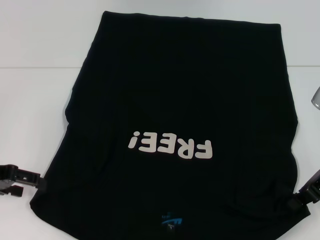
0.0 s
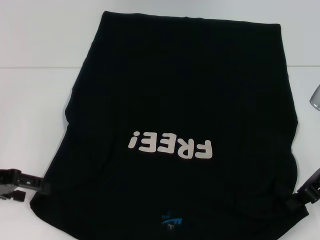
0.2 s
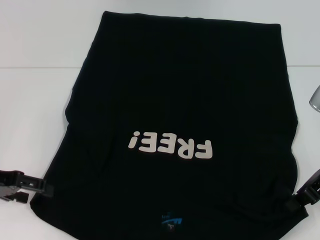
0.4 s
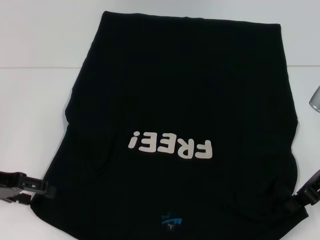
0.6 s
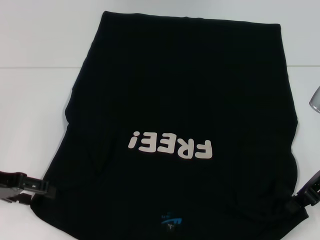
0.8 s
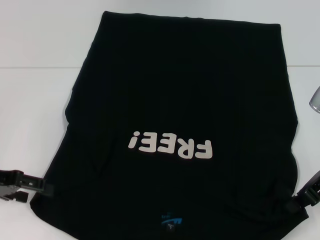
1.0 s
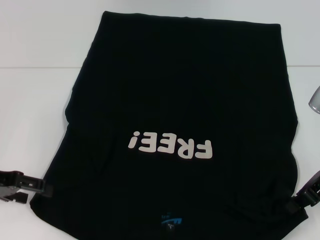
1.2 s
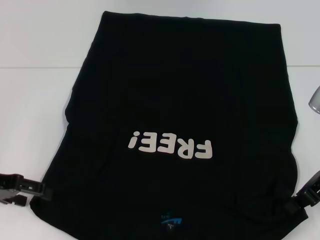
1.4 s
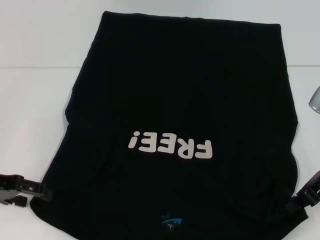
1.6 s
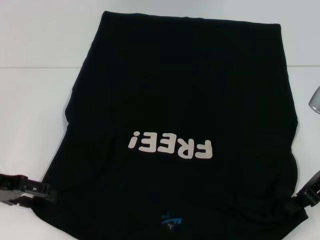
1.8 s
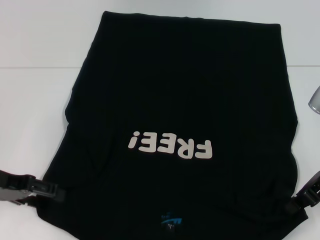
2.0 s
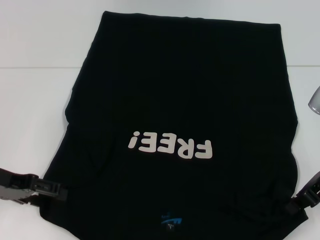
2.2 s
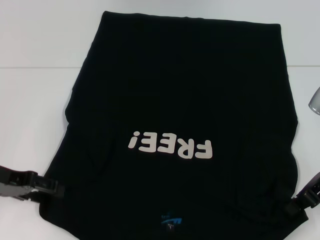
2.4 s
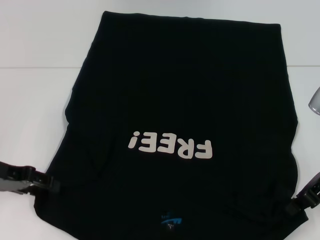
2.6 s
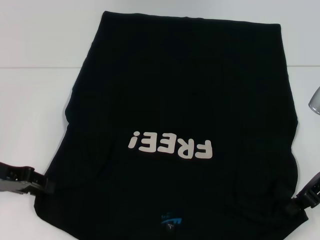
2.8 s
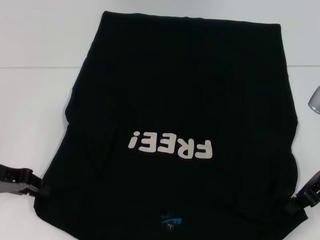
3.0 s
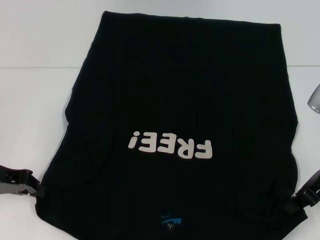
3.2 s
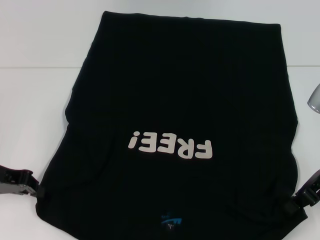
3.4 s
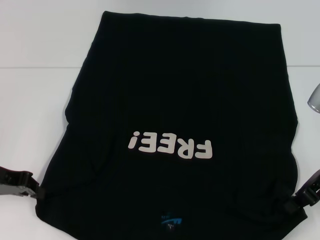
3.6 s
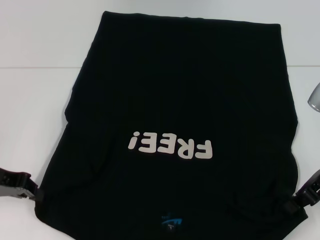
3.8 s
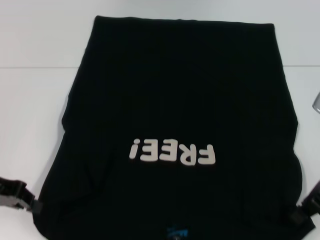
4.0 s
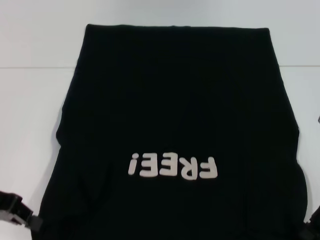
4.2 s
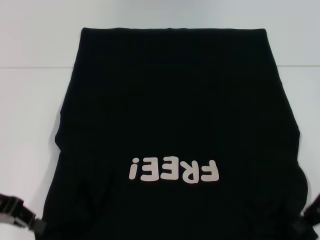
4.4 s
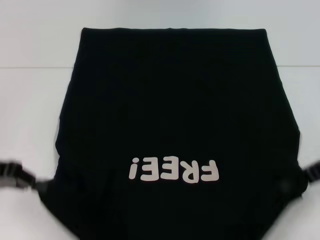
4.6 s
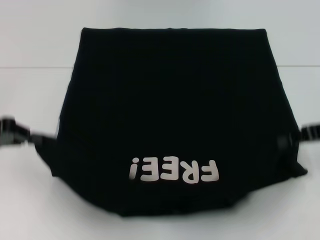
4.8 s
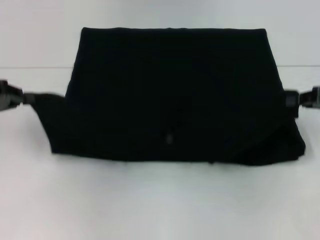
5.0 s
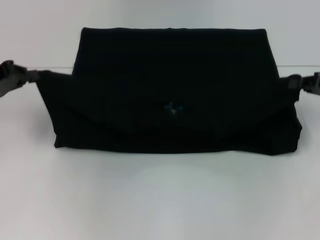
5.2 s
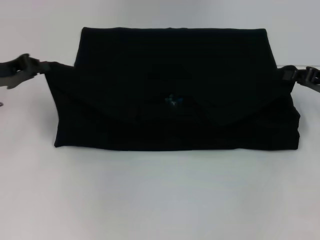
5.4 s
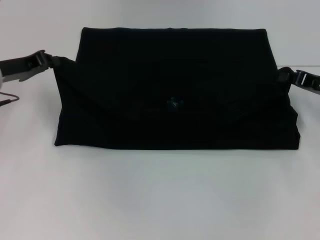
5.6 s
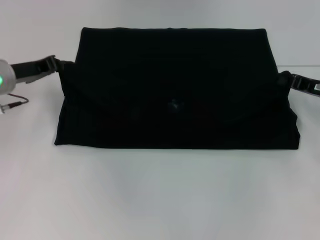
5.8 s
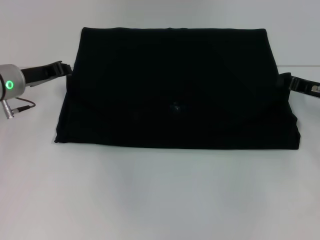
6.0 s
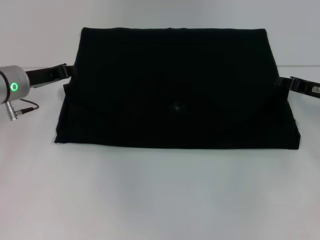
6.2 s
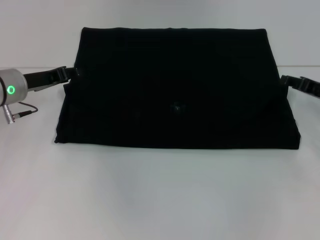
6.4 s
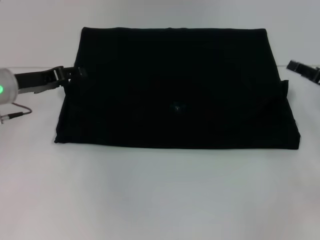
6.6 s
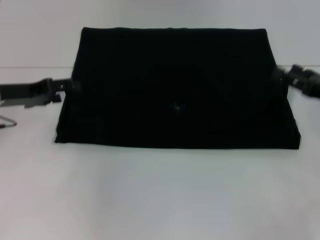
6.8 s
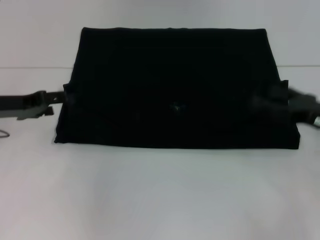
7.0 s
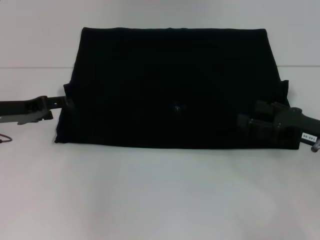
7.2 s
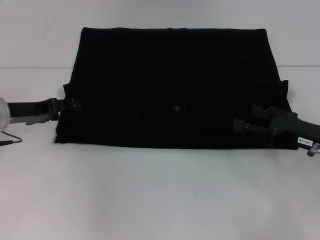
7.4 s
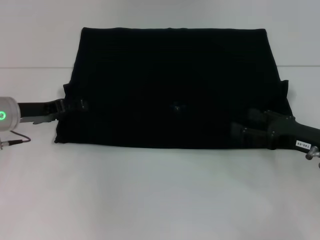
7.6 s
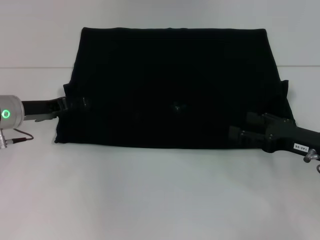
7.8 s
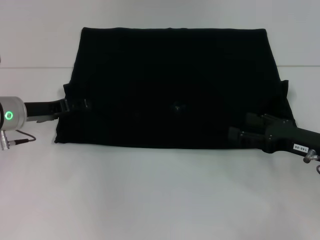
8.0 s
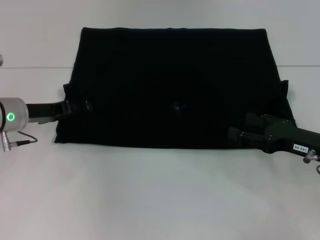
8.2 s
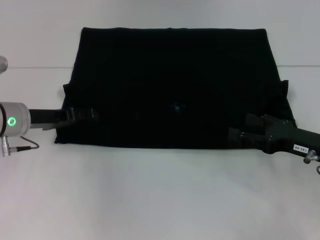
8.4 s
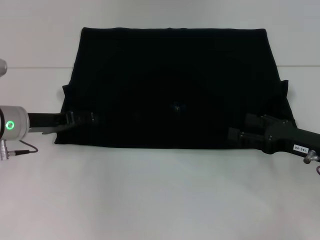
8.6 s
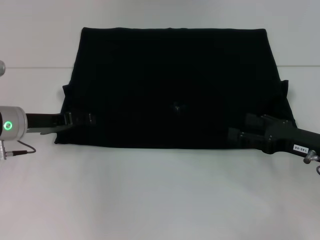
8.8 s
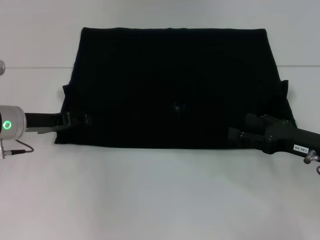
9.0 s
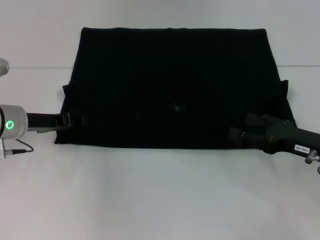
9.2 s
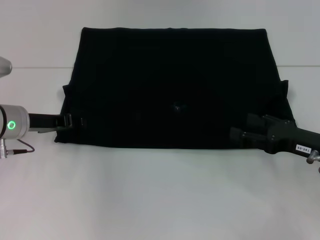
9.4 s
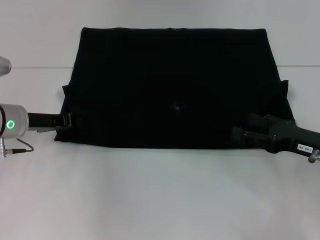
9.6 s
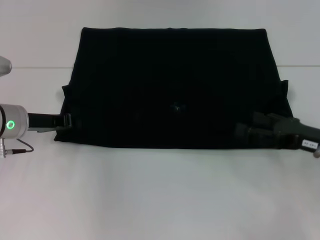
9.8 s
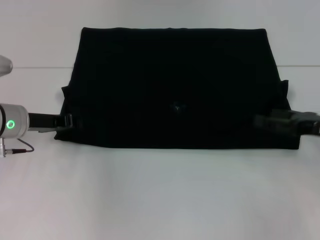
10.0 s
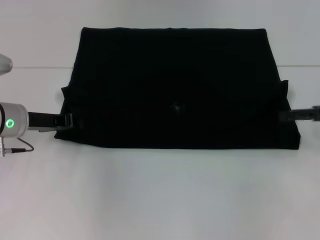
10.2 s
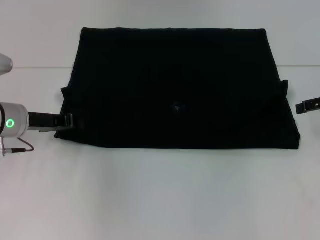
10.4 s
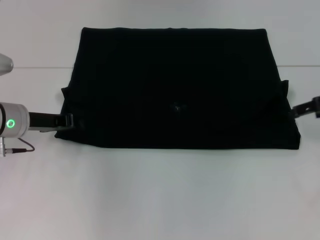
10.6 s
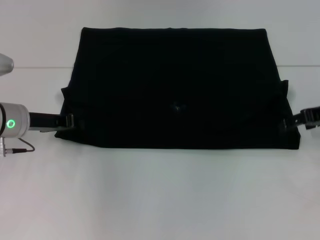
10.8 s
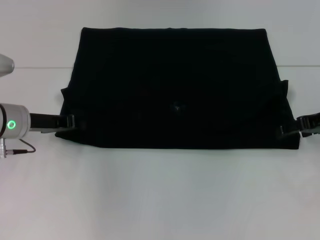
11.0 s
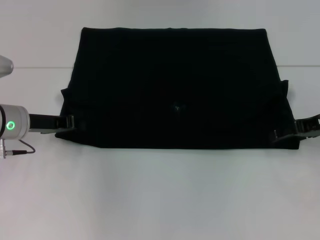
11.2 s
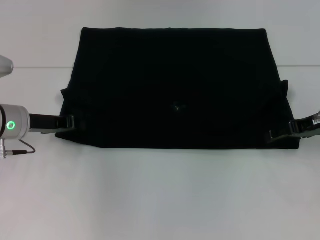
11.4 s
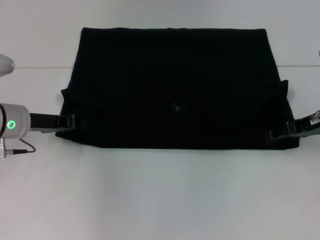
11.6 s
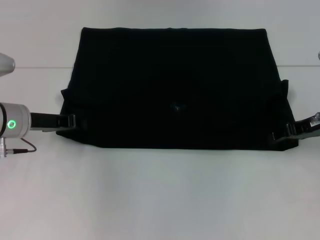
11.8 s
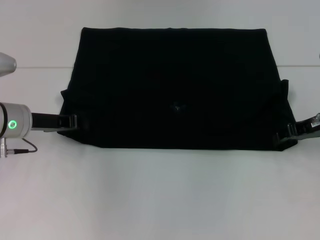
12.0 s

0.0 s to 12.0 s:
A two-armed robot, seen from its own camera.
Step, 0.0 to 6.4 s: Fold the clothes with your left hand.
Step, 0.0 to 6.4 s: Fold the clothes with your right hand.
0.0 to 1.6 s: Neither gripper changes place.
1.6 to 3.0 s: The left gripper closes up.
3.0 to 4.4 s: The left gripper closes up.
4.4 to 6.0 s: The left gripper is displaced forward by approximately 15 cm. The right gripper travels forward by roughly 10 cm.
6.0 to 7.6 s: The left gripper opens its fingers; the right gripper travels backward by some 10 cm, and opens up.
7.6 to 9.0 s: The grippers make only small movements.
9.0 to 10.4 s: The left gripper closes its fingers. Meanwhile the right gripper shifts some 15 cm upward, forward and to the right.
10.4 to 12.0 s: The right gripper heads to the left and downward, covering about 5 cm, and closes.

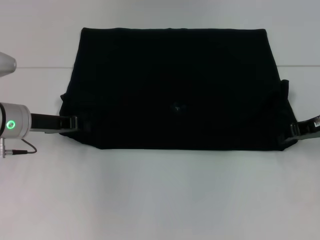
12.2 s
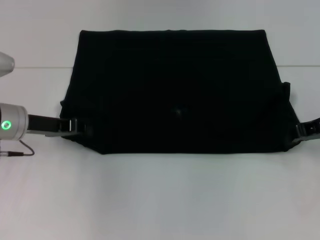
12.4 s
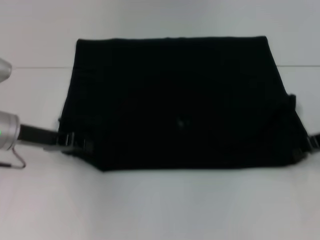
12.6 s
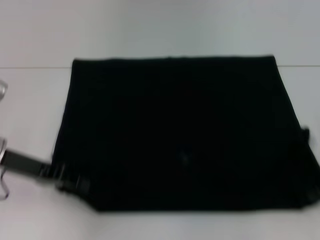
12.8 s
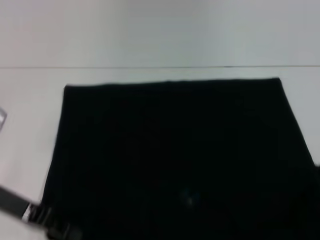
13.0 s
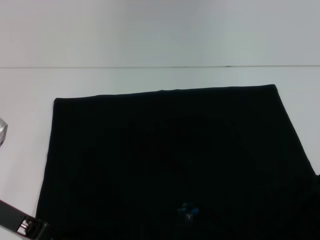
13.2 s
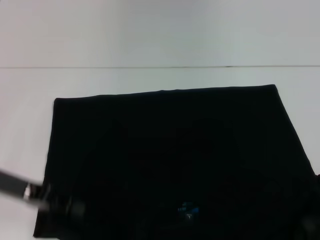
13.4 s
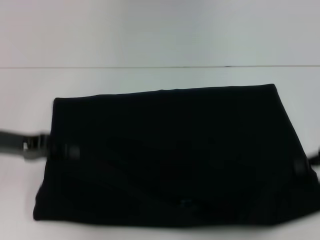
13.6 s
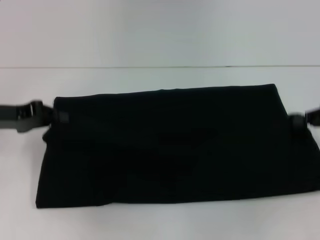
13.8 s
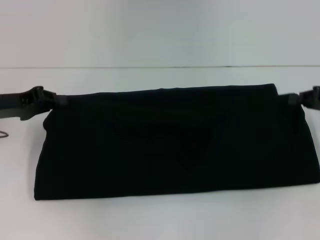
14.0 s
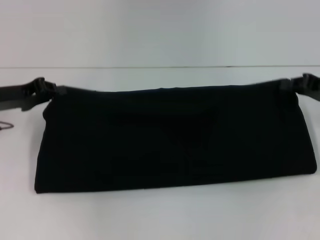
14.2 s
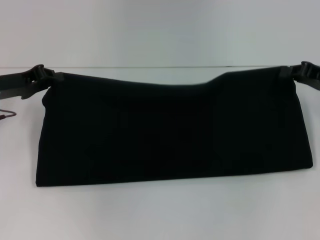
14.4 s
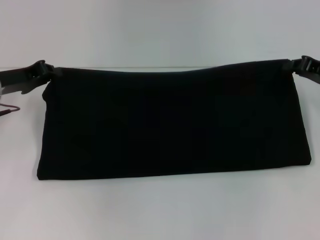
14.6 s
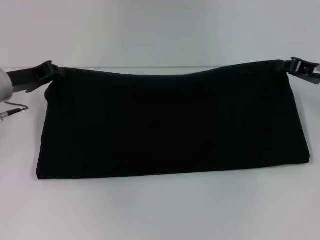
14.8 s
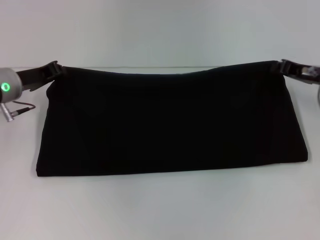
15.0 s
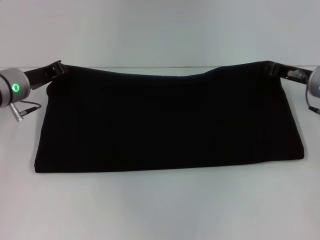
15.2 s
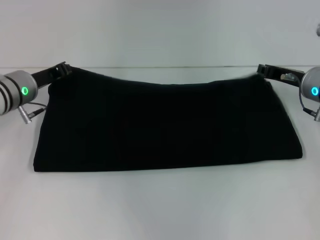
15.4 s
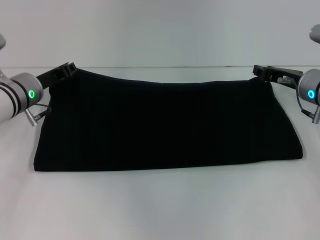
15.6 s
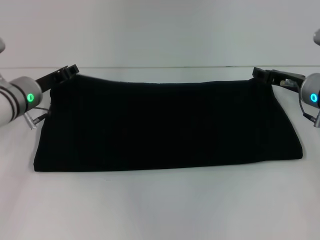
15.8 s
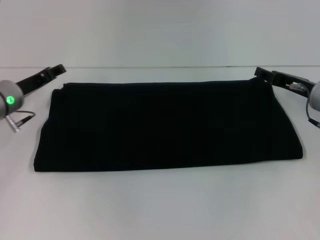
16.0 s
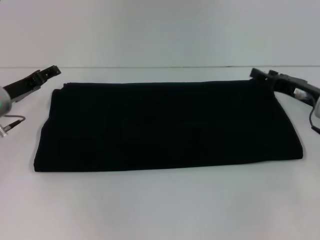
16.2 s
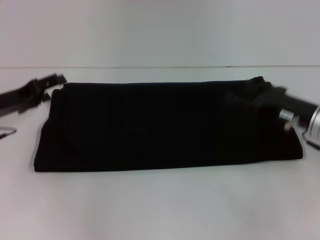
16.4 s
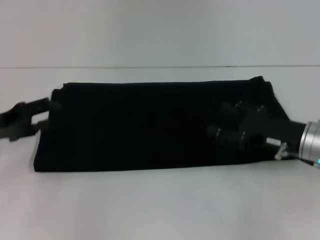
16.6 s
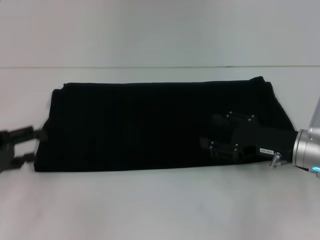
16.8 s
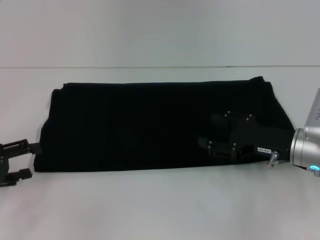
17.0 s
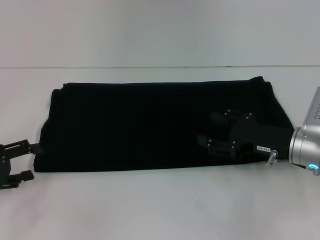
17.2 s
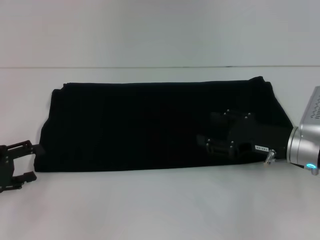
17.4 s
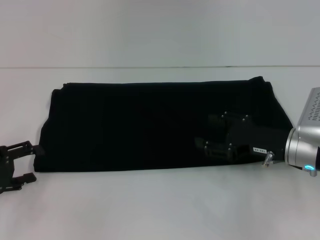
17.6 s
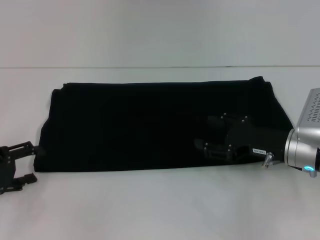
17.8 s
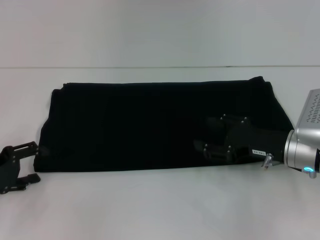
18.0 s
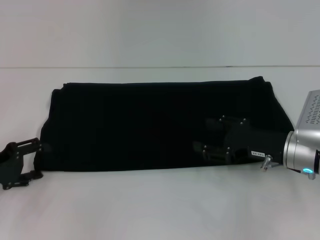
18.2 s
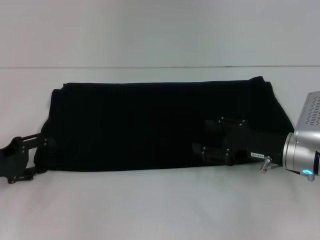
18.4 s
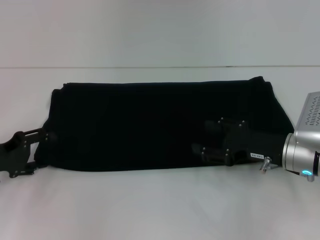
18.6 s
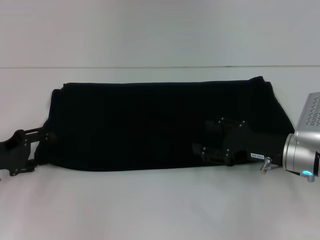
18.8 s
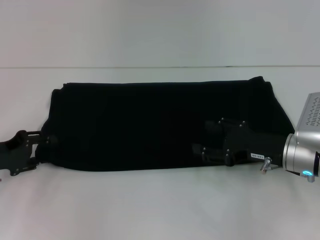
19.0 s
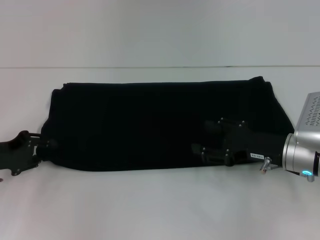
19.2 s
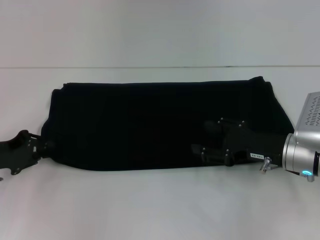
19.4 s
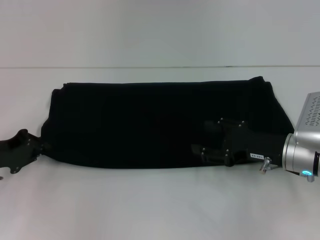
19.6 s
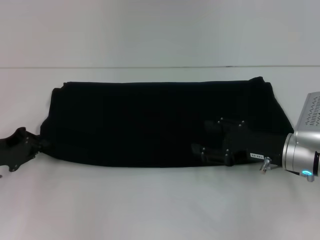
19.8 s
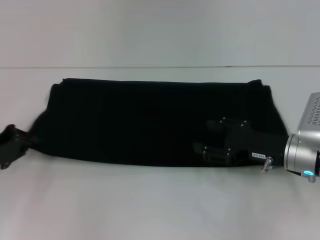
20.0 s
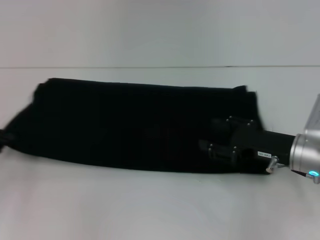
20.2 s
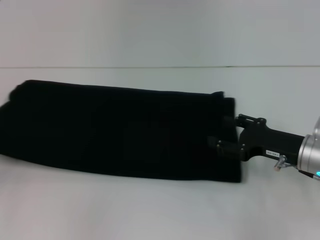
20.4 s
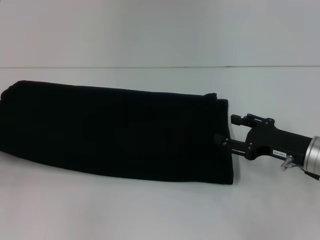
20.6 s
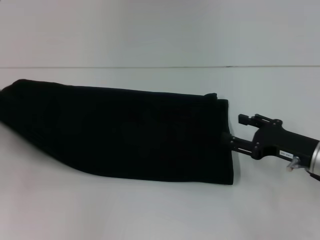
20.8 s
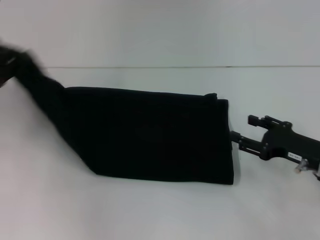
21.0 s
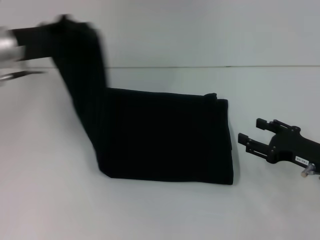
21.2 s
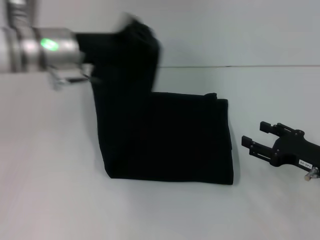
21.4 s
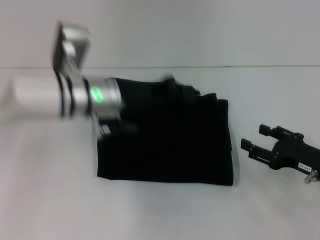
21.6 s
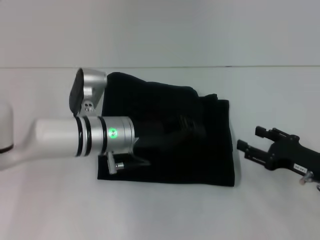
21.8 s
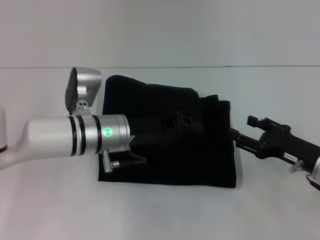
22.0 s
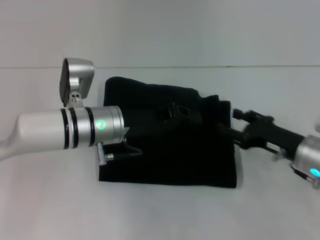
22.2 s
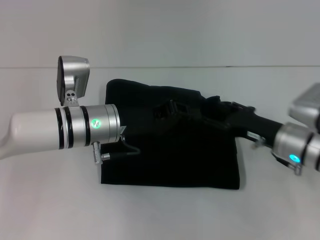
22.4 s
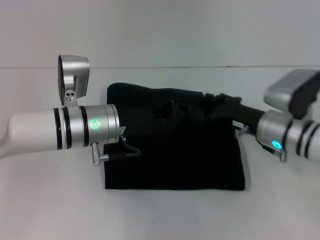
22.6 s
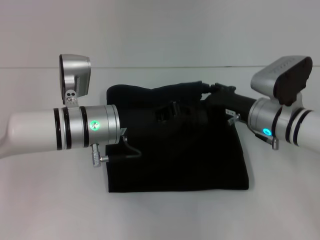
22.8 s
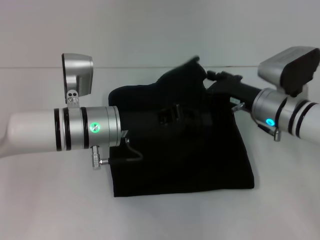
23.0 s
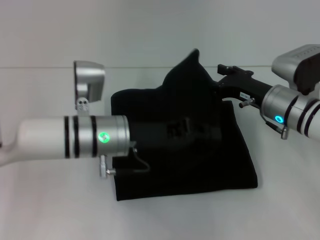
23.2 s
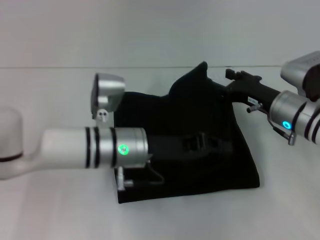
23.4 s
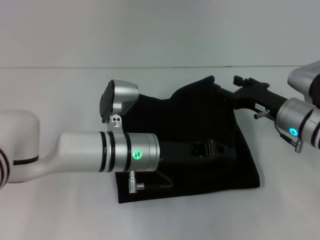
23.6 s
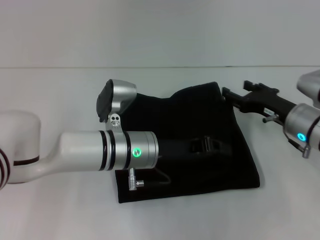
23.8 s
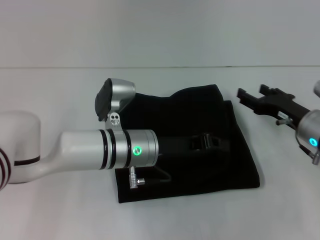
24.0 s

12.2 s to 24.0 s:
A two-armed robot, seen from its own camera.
Step, 13.2 to 15.8 s: Fold the clothes with your right hand.
Step, 13.2 to 22.0 s: Fold the clothes with your left hand.
12.2 to 13.6 s: The right gripper moves backward, some 5 cm, while the left gripper ends up roughly 10 cm from where it was.
13.6 to 15.2 s: The left gripper travels forward by roughly 10 cm. The right gripper shifts about 10 cm forward and to the left.
15.2 to 16.6 s: The left gripper travels backward and to the left by approximately 10 cm, and opens. The right gripper goes roughly 10 cm backward, and opens.
16.6 to 18.2 s: The left gripper ends up about 5 cm from where it was.
18.2 to 19.6 s: The left gripper closes its fingers.
19.6 to 21.0 s: The right gripper goes approximately 5 cm to the right. Meanwhile the left gripper heads upward and forward, covering roughly 10 cm.
21.0 to 22.6 s: The right gripper moves to the left and forward, roughly 10 cm. The left gripper is displaced to the right by roughly 20 cm.
22.6 to 24.0 s: The two grippers go approximately 5 cm to the right.
